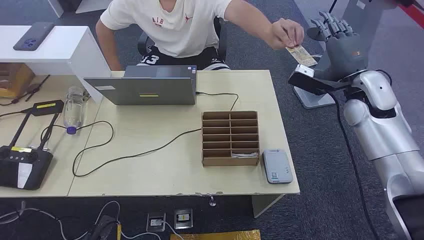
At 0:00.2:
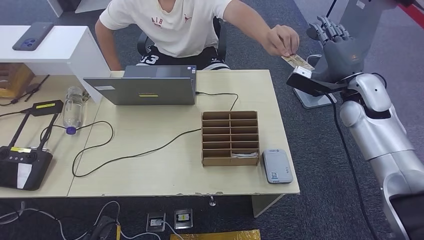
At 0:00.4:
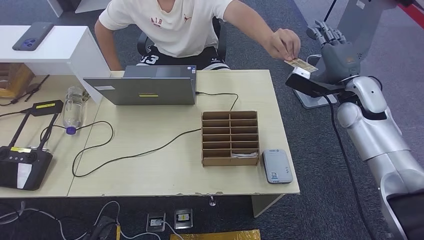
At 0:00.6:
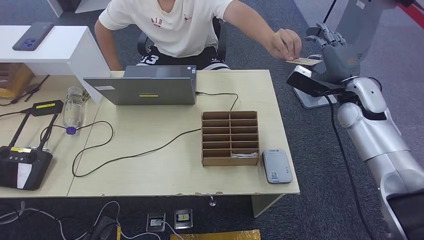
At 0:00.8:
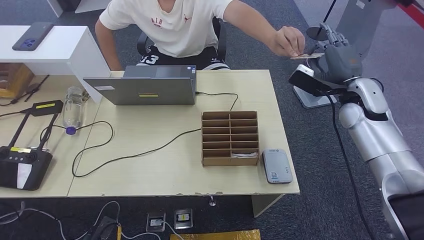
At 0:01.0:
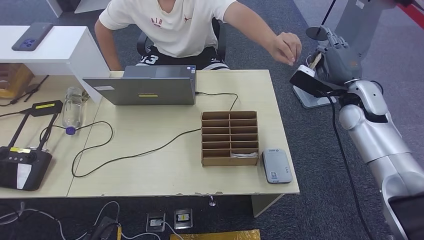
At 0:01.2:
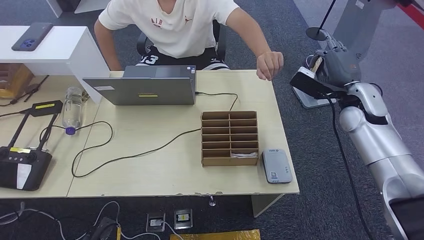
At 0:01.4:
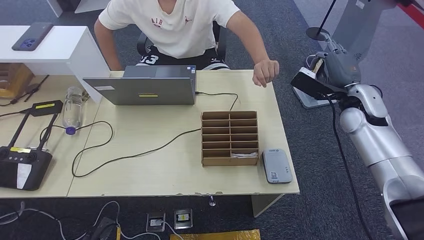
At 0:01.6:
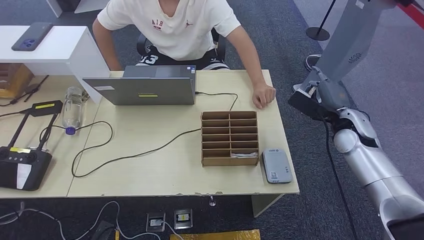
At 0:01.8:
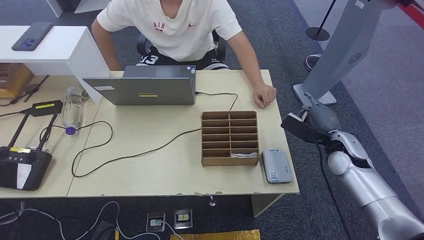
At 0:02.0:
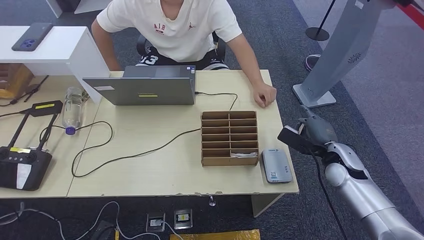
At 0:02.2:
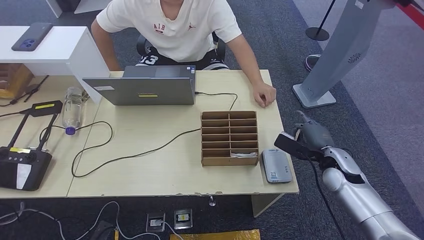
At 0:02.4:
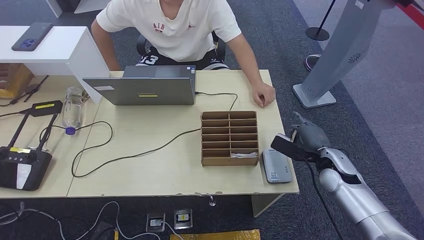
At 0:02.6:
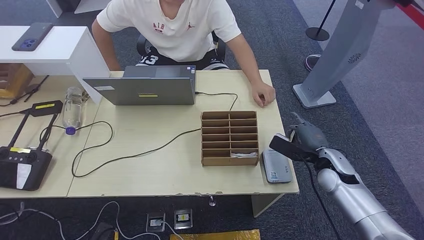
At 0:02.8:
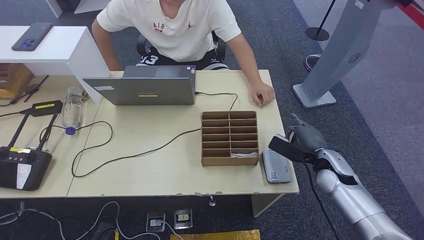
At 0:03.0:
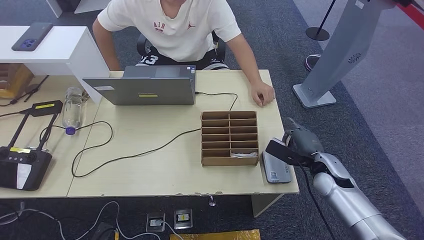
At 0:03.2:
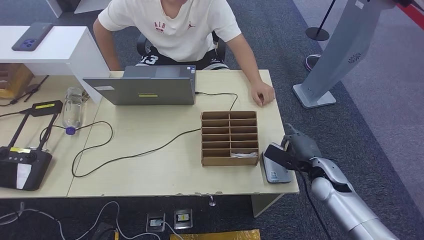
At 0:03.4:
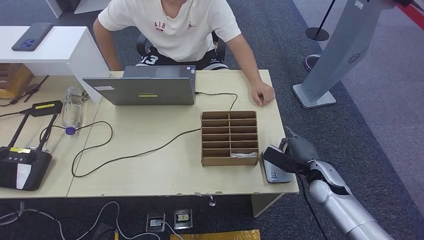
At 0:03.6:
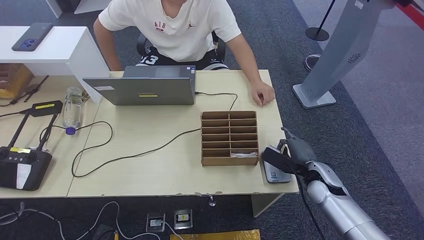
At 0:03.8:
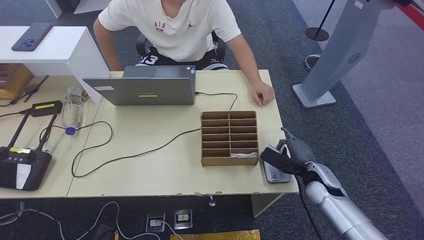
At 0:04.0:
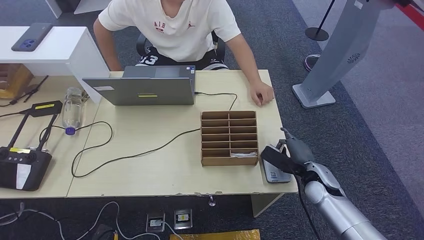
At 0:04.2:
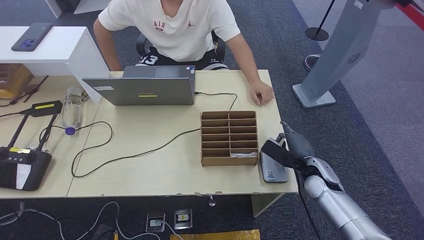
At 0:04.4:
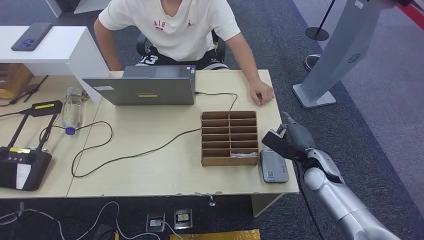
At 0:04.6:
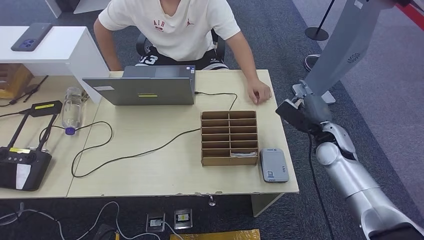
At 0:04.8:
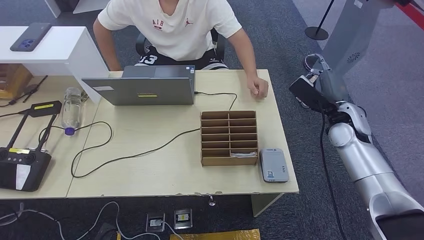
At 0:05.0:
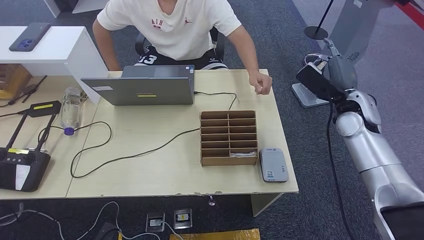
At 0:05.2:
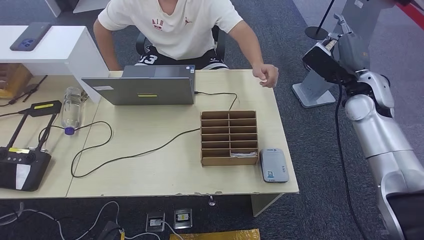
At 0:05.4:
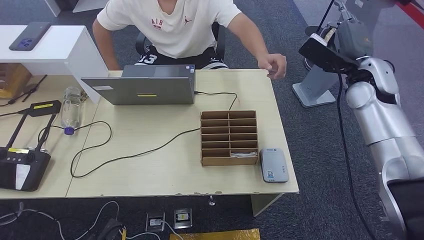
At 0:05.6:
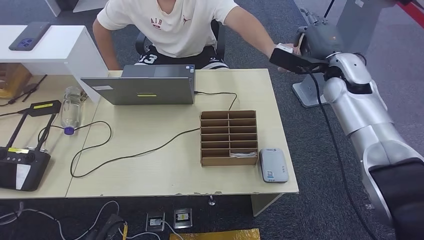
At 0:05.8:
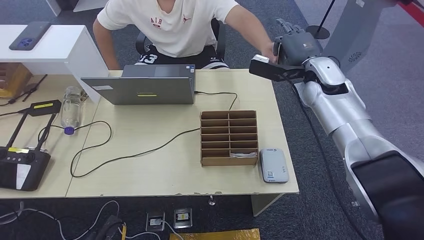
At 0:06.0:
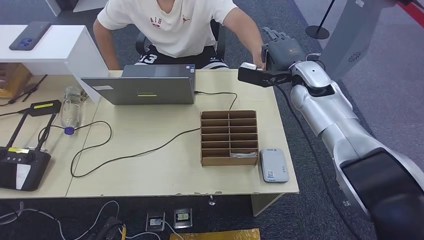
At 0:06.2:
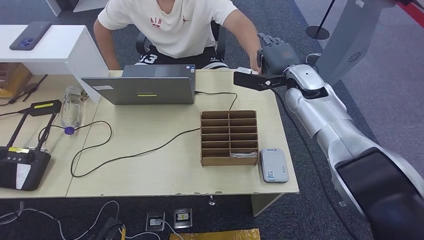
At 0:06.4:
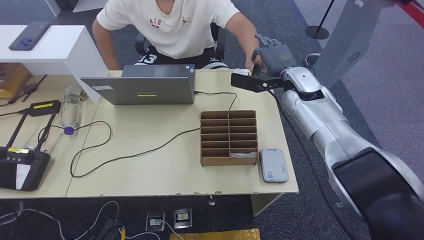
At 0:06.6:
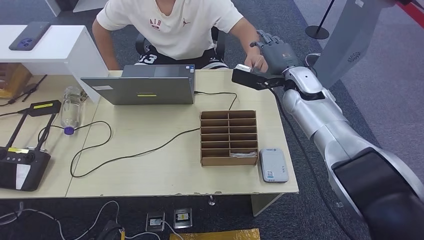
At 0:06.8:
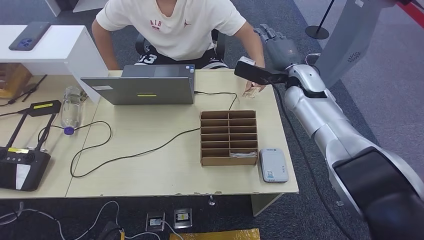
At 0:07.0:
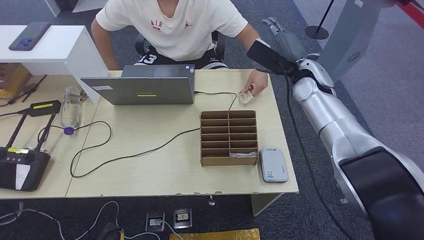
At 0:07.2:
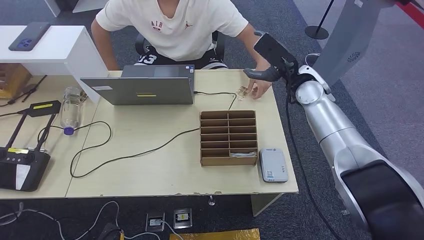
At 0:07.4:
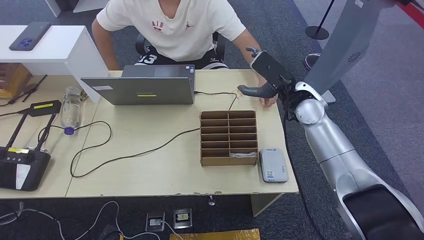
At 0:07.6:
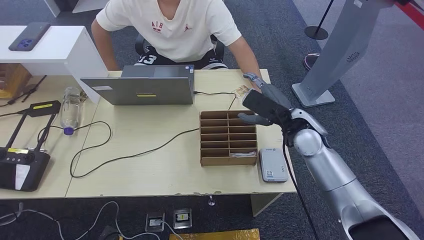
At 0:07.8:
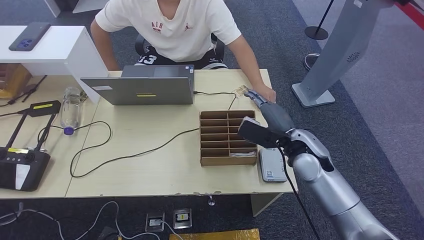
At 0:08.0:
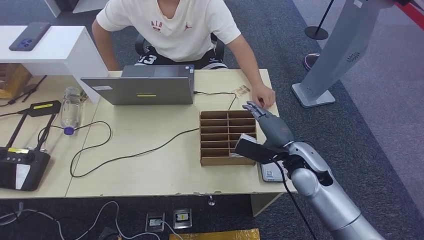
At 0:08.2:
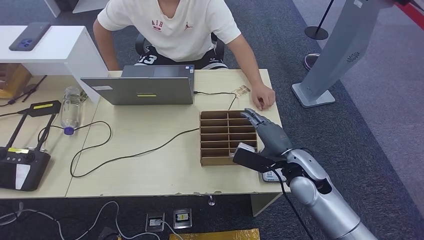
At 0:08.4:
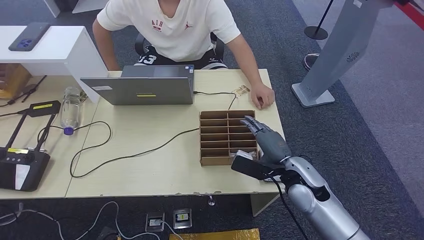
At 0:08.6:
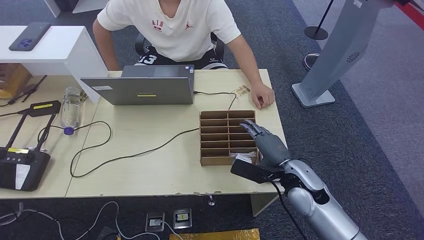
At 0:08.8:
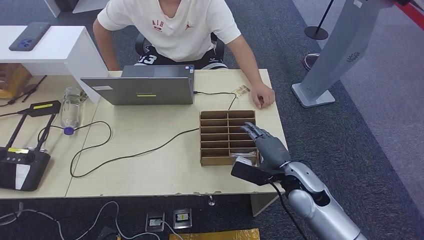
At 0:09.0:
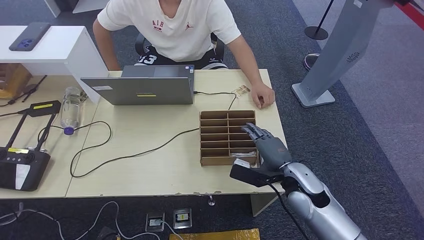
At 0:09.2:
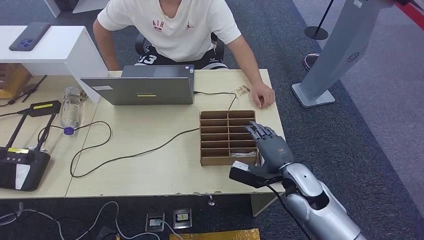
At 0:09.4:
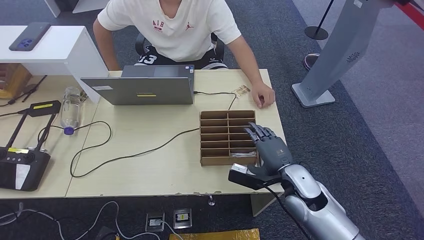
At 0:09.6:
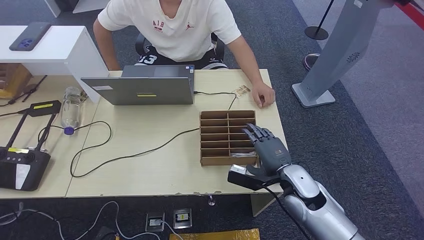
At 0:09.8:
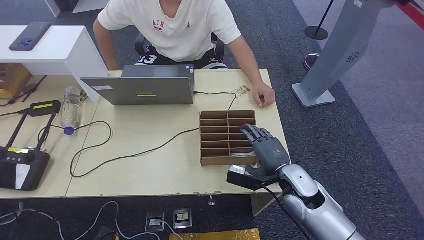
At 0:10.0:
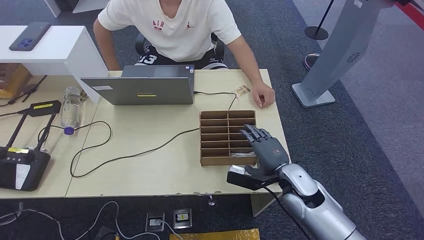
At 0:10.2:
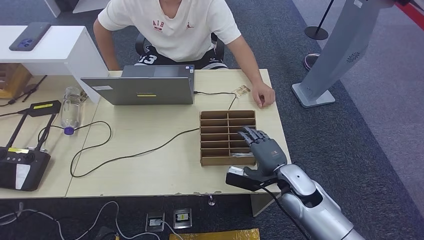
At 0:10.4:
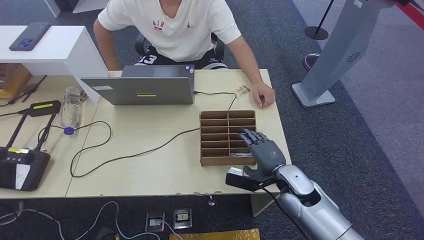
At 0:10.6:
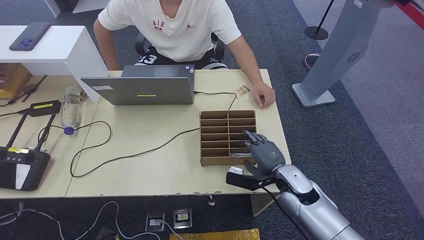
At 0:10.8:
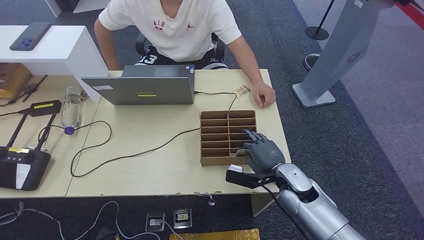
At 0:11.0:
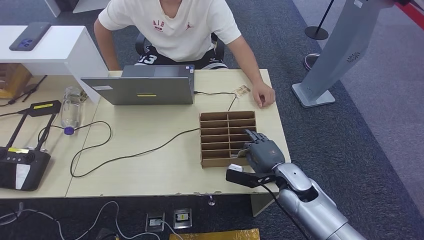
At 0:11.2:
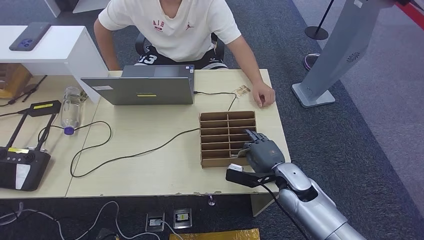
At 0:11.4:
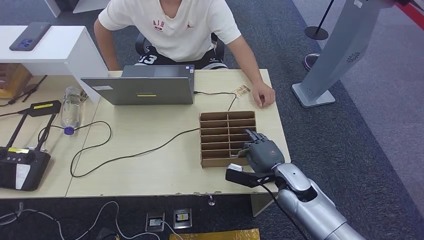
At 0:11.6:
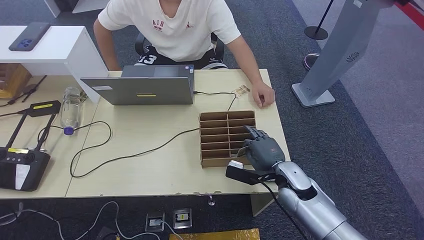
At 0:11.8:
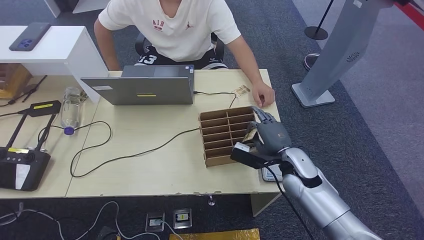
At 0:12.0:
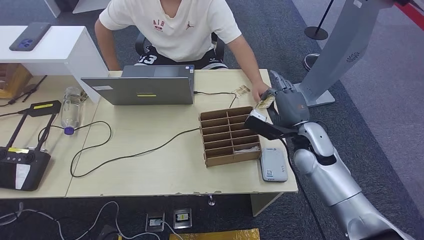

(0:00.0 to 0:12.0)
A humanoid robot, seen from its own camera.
Step, 0:00.0 - 0:01.4: Take the ID card from the person's hand.
Step, 0:01.6 - 0:03.2: Place the ID card on the card reader.
Step, 0:03.4 - 0:08.0: Hand the ID card to the person.
0:01.6 - 0:03.0: The right hand travels downward and backward by some 15 cm.
0:03.0 - 0:04.4: The hands move only a little.
0:06.0 - 0:07.6: The right hand is displaced backward and downward by about 10 cm.
0:07.6 - 0:09.0: The right hand travels backward and downward by approximately 15 cm.
0:09.0 - 0:10.4: The hands stay close to where they were, moving slightly.
0:10.4 - 0:12.0: The right hand heads upward and forward, covering approximately 10 cm.

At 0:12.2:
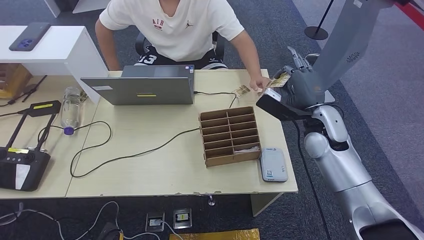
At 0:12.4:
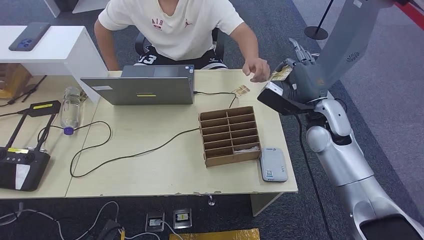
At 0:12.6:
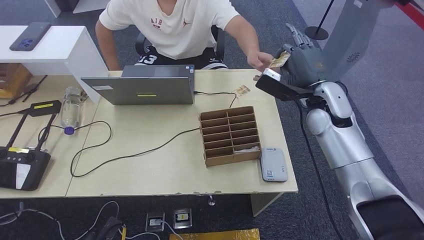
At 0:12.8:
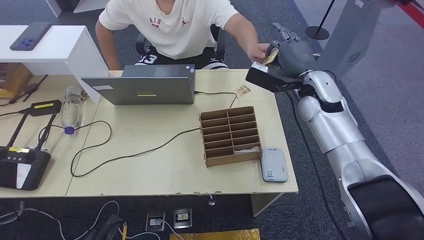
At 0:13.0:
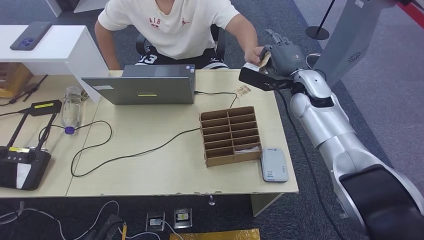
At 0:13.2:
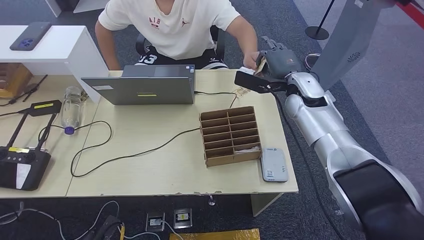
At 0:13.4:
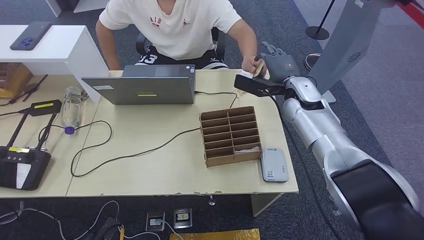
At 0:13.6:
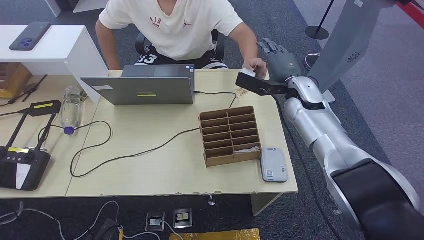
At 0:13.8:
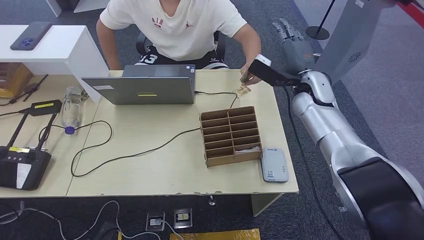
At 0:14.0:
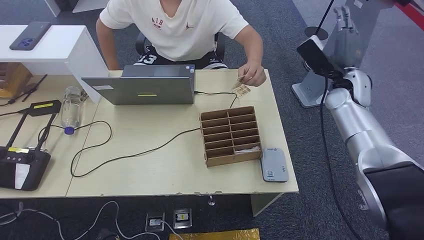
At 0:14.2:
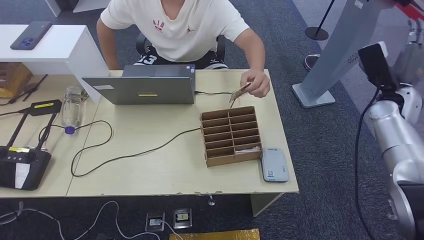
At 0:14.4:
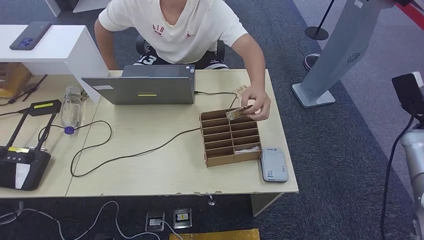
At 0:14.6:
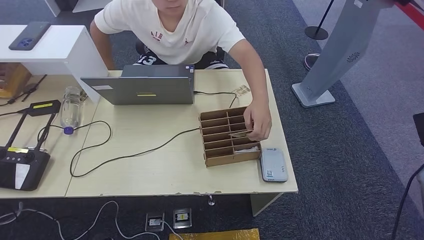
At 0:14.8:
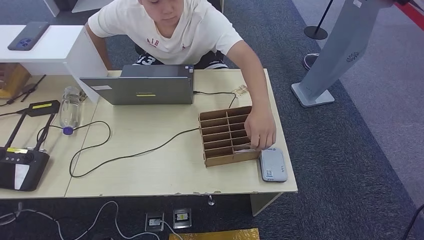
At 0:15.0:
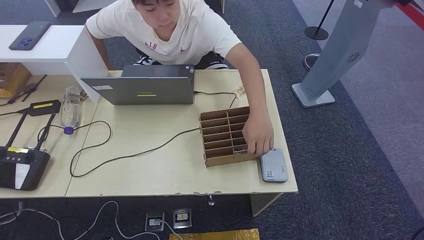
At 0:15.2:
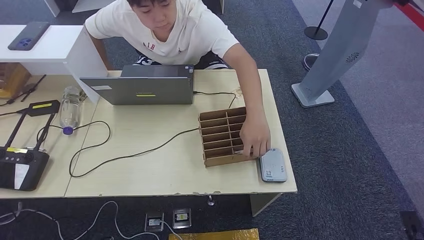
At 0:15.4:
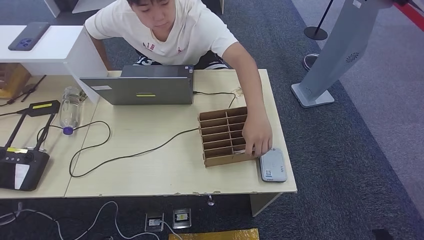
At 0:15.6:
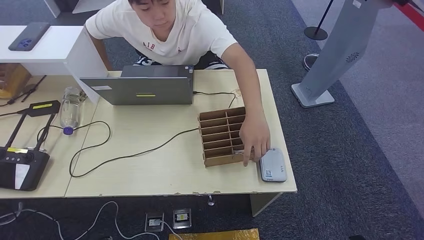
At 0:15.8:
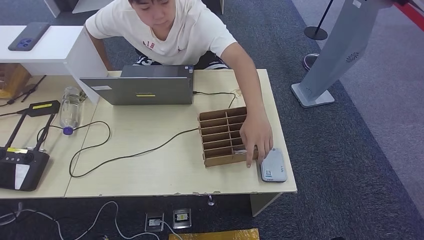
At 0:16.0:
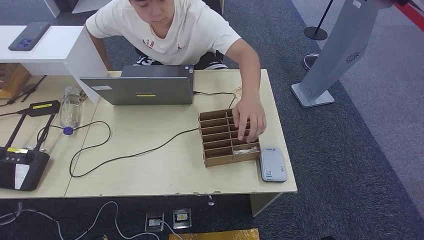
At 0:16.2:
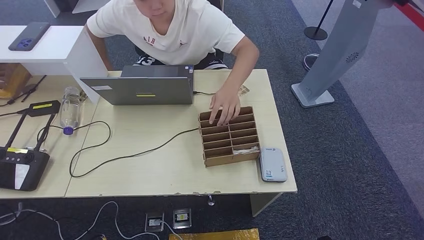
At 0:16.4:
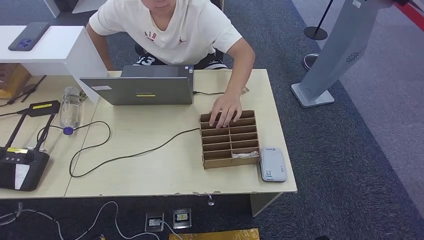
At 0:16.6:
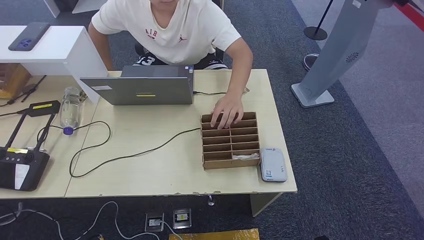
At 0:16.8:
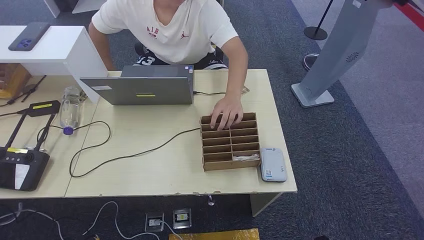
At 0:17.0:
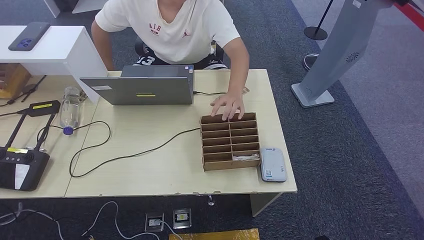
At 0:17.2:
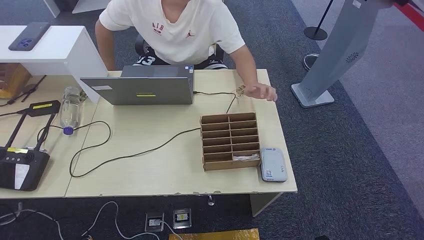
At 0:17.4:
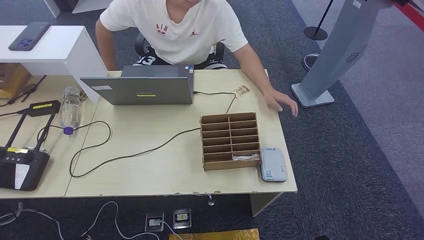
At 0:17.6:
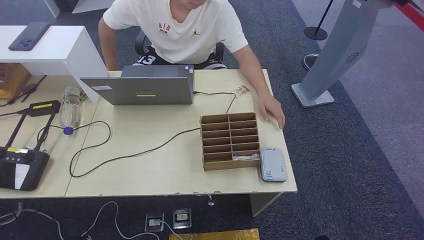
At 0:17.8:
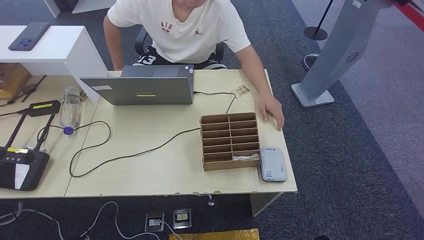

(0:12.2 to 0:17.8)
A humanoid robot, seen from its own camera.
Step, 0:13.2 - 0:17.8: Hand the room key to the person.
0:12.2 - 0:13.6: The right hand shifts roughly 10 cm forward.
0:13.6 - 0:15.0: The right hand heads to the right, backward and downward, covering about 50 cm.
0:15.0 - 0:16.4: The right hand goes roughly 25 cm to the left and downward.
0:16.4 - 0:17.8: The hands move only a little.
